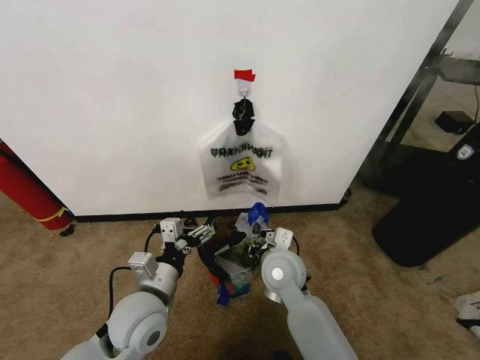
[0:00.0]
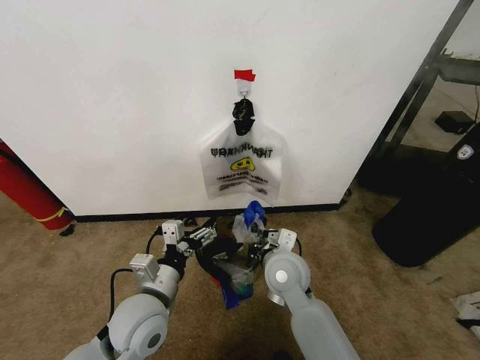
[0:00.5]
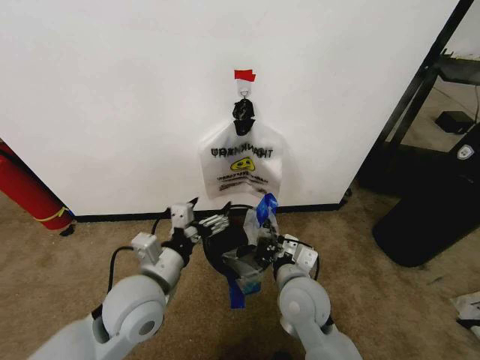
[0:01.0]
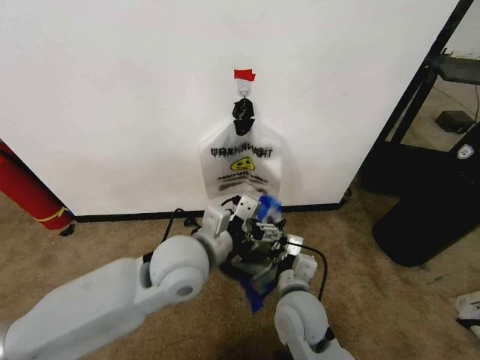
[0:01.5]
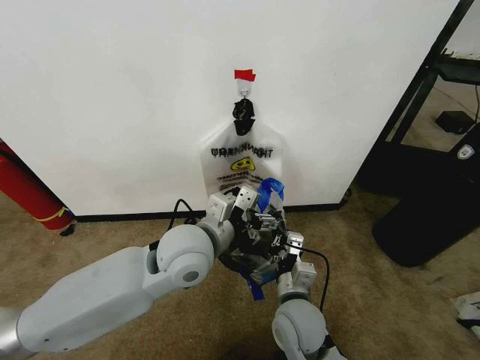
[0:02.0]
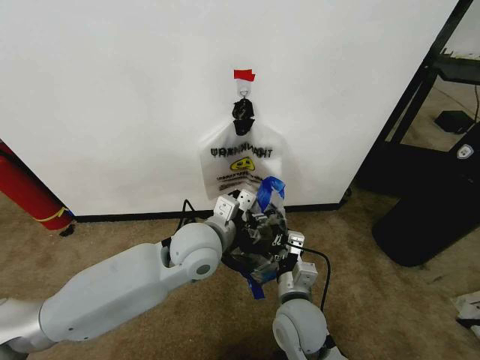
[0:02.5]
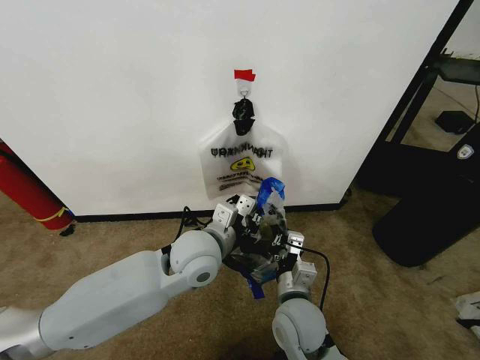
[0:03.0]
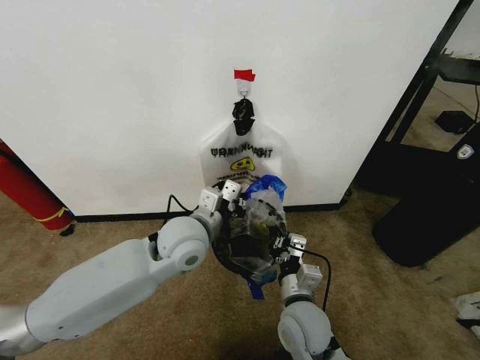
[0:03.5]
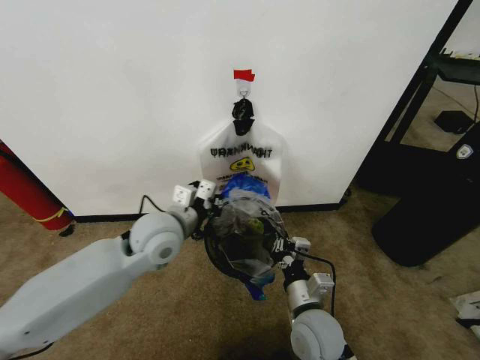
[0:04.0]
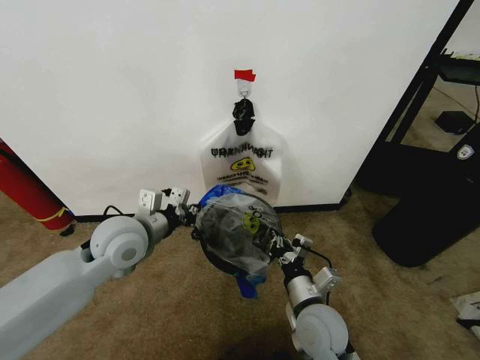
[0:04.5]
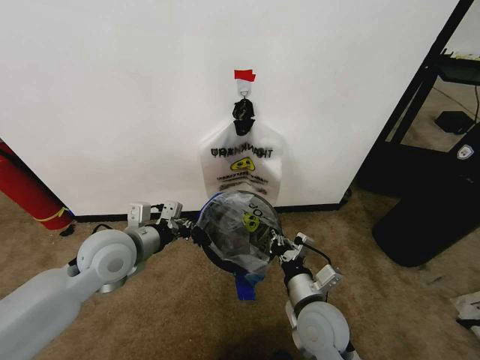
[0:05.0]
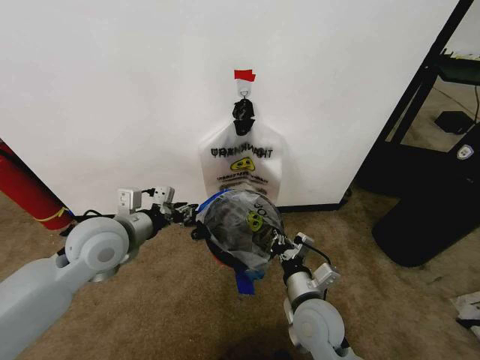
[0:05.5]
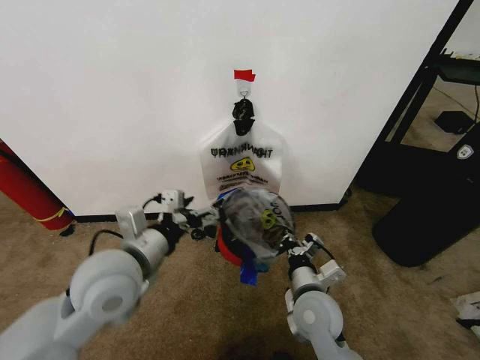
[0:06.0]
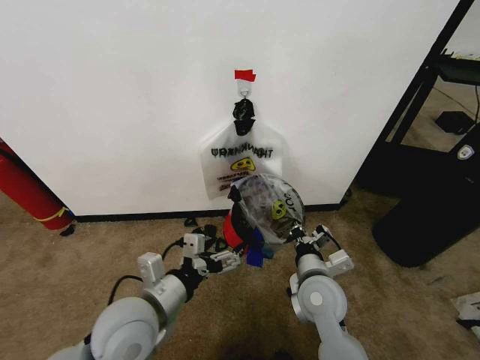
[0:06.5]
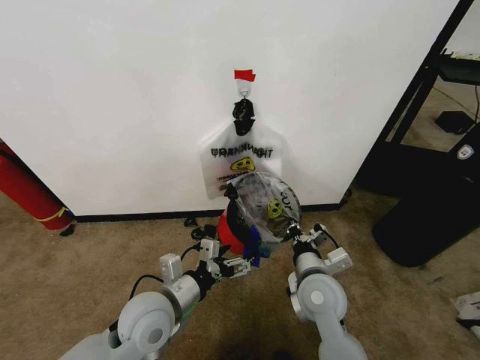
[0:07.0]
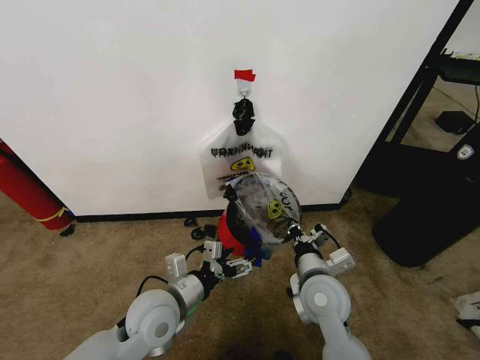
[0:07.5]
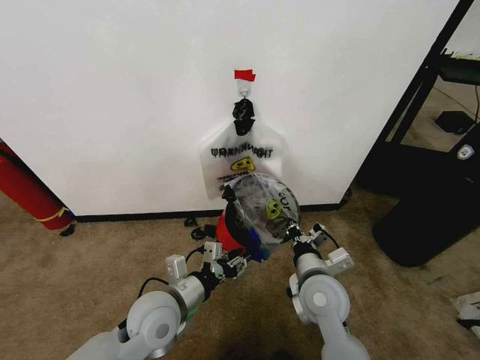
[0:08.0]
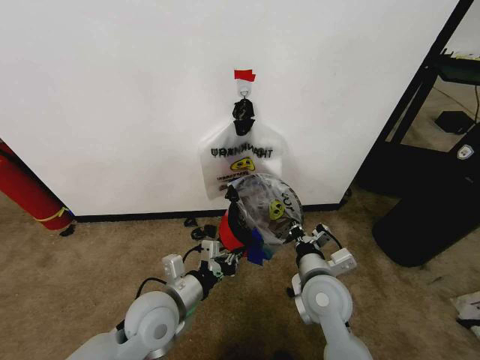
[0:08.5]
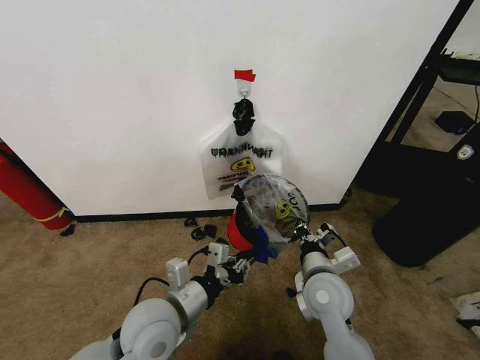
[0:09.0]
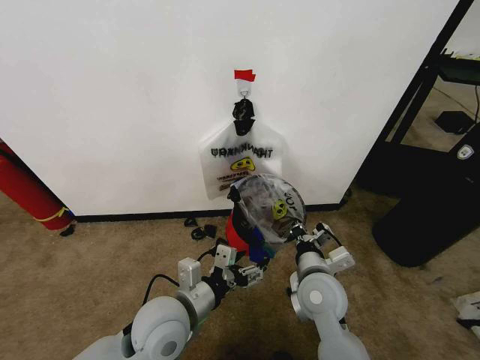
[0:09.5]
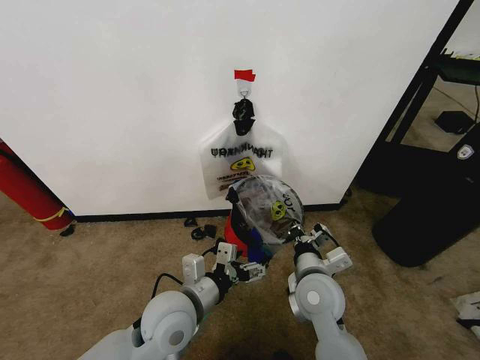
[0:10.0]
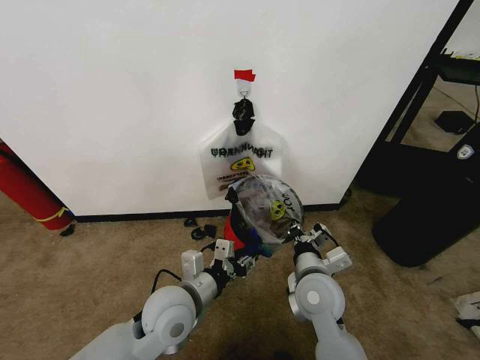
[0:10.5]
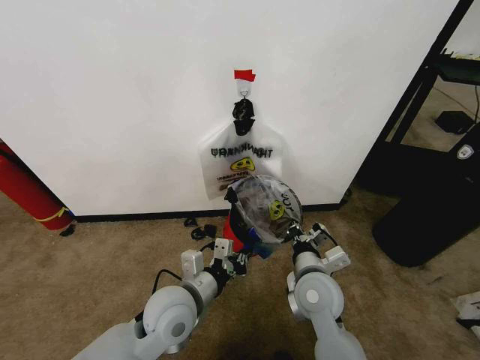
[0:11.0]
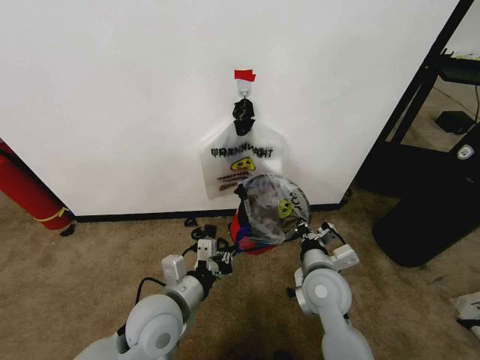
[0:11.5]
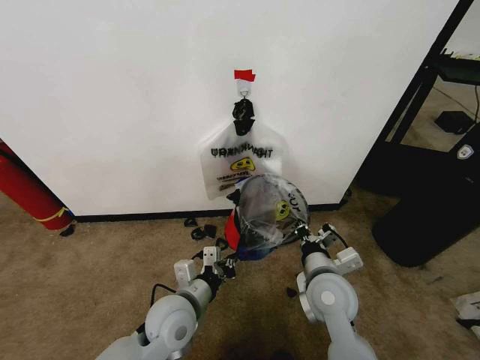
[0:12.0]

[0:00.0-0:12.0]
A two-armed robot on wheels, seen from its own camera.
Task of the whole recording: Pick up the garbage bag from the wall and place it over the trash bin.
0:00.0 to 0:02.0: The left gripper shifts some 15 cm upward, to the right and forward, while the right gripper moves backward, roughly 10 cm, and closes.
0:02.0 to 0:04.0: The left gripper heads to the left, covering about 5 cm, and closes its fingers.
0:04.0 to 0:06.0: The left gripper travels backward and to the left by roughly 10 cm, and opens its fingers.
0:06.0 to 0:08.0: The left gripper is displaced downward by approximately 15 cm, and closes up.
0:08.0 to 0:10.0: The left gripper opens its fingers.
0:10.0 to 0:12.0: The left gripper closes.

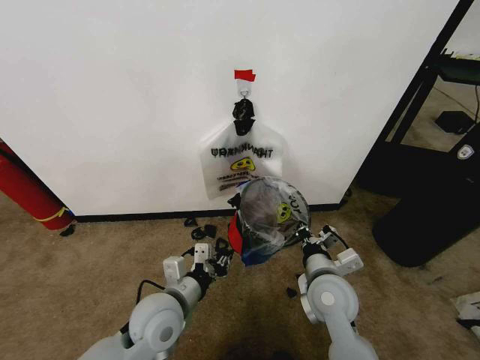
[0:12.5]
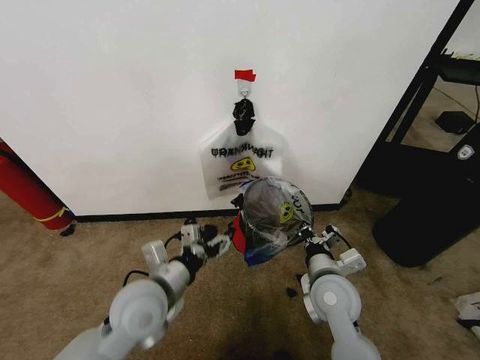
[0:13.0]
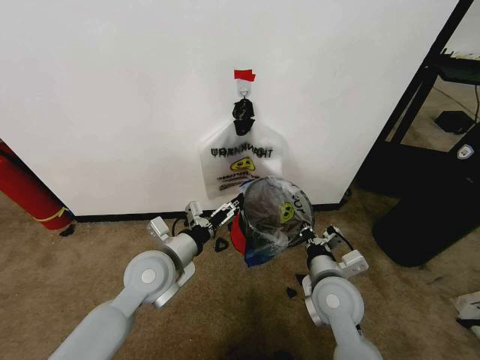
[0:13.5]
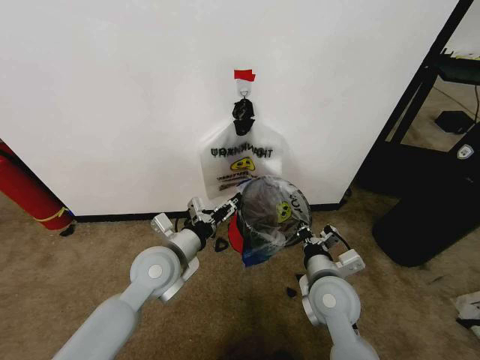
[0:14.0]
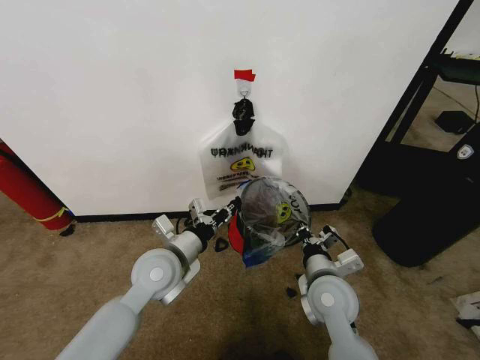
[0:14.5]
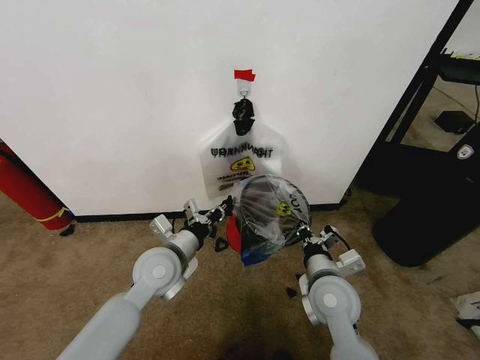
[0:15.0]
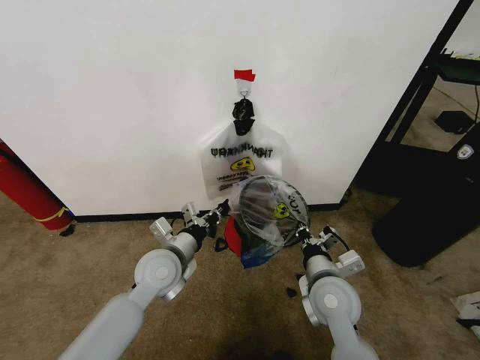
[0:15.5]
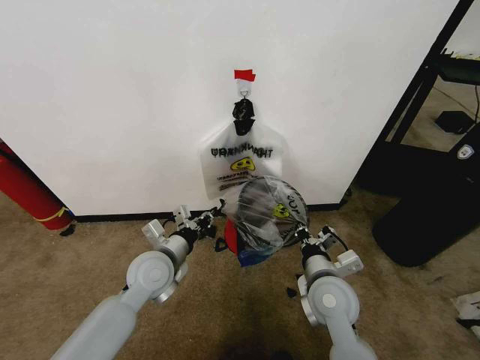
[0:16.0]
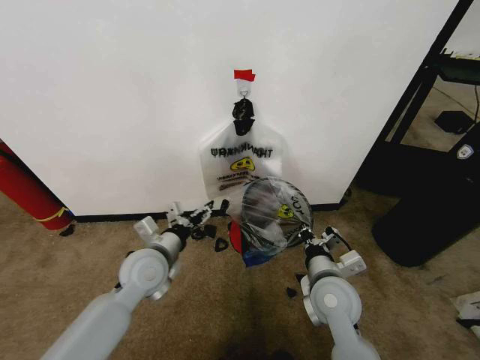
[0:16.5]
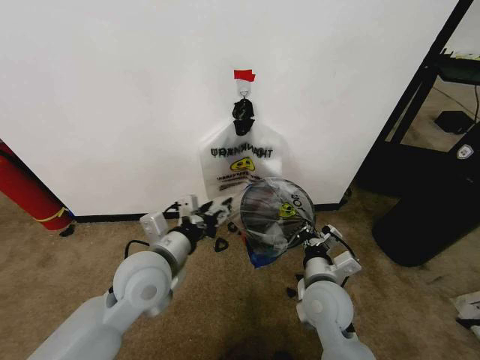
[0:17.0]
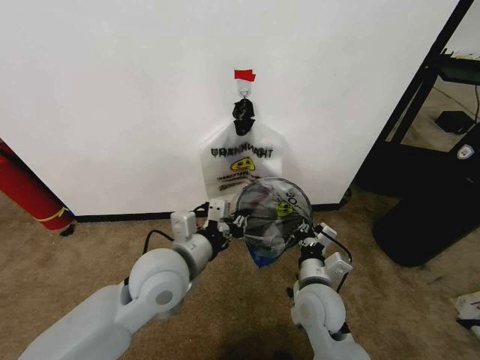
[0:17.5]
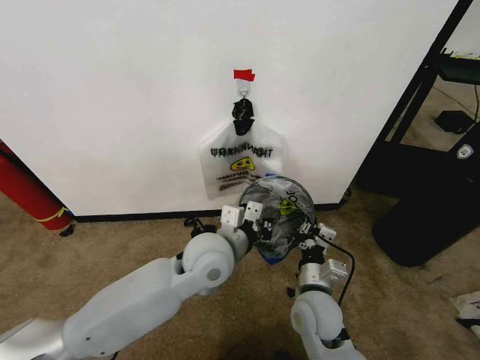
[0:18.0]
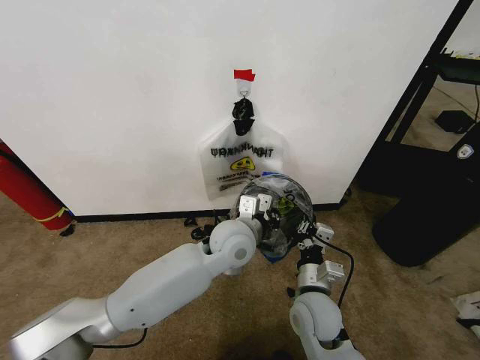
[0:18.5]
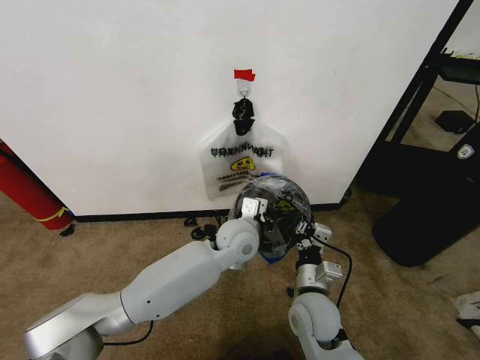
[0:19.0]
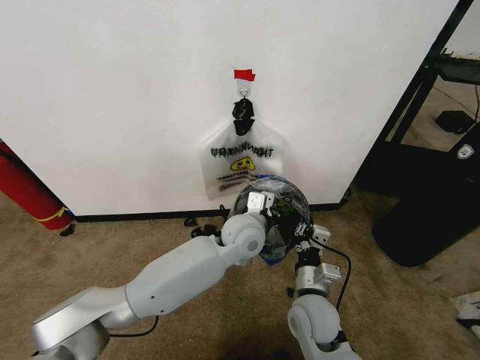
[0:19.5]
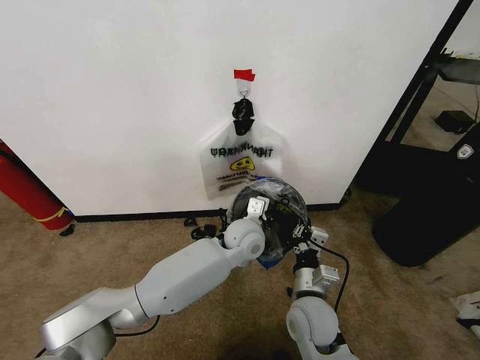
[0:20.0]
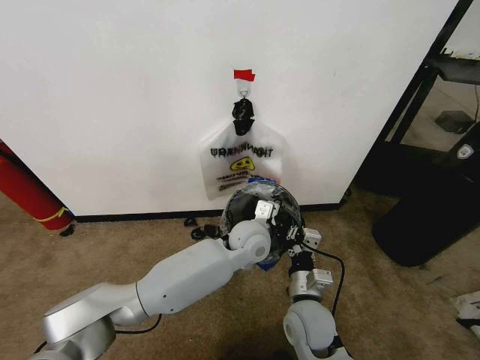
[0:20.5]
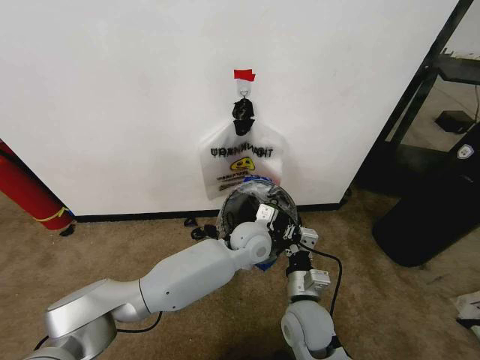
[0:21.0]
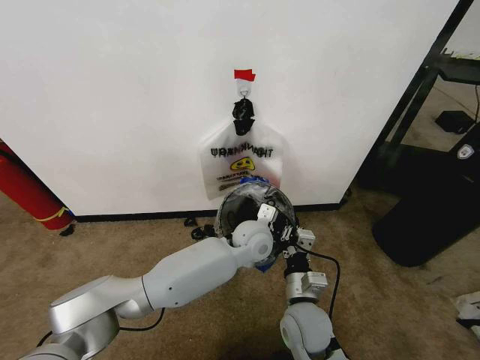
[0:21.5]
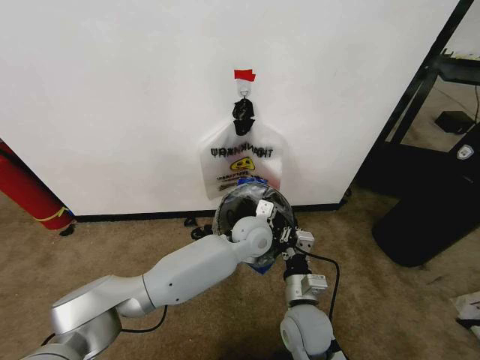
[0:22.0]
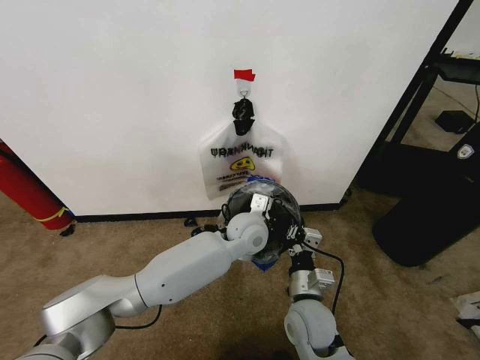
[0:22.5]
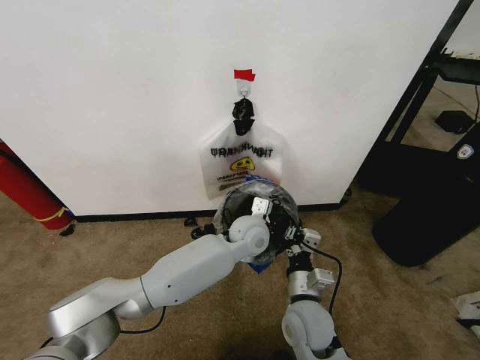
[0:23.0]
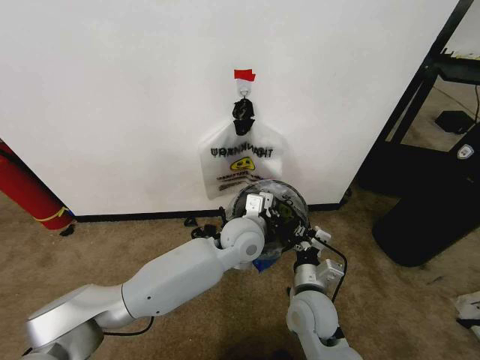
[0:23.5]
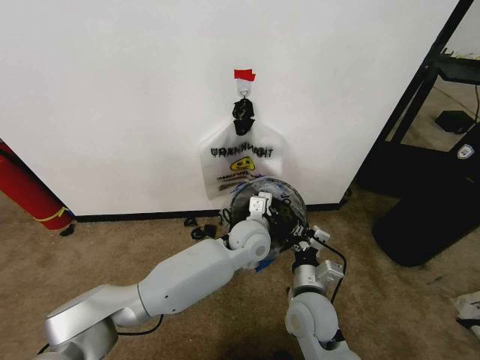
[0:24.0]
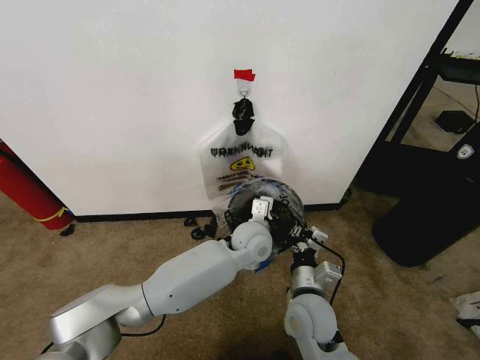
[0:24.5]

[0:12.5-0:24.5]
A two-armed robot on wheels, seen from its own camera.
Task of the whole recording: Pick up the garbage bag from the wall and place it over the trash bin.
0:12.5 to 0:14.5: The left gripper heads forward, covering roughly 5 cm, and opens and closes again.
0:14.5 to 0:16.5: The left gripper opens up.
0:16.5 to 0:18.5: The left gripper moves to the right, approximately 20 cm, and closes up; the right gripper changes place by about 5 cm.
0:18.5 to 0:20.5: The left gripper moves approximately 5 cm.
0:20.5 to 0:24.5: The grippers make only small movements.

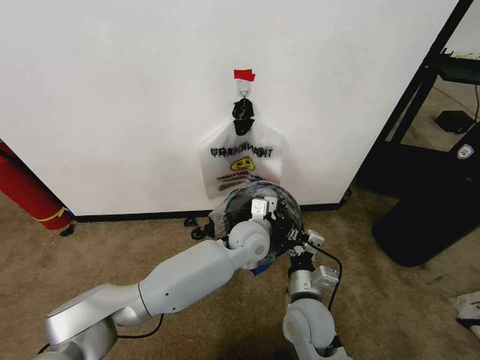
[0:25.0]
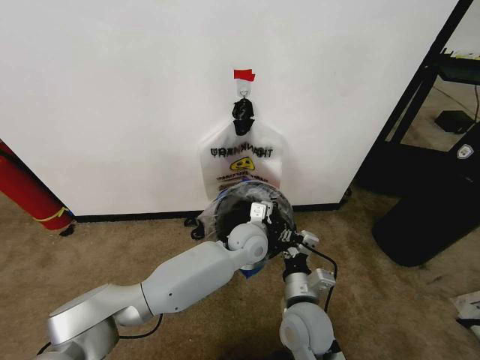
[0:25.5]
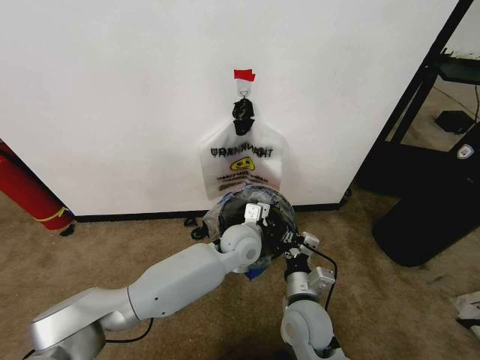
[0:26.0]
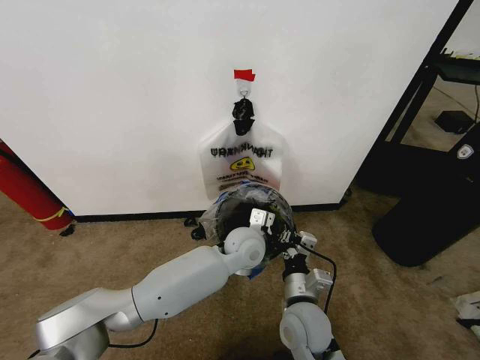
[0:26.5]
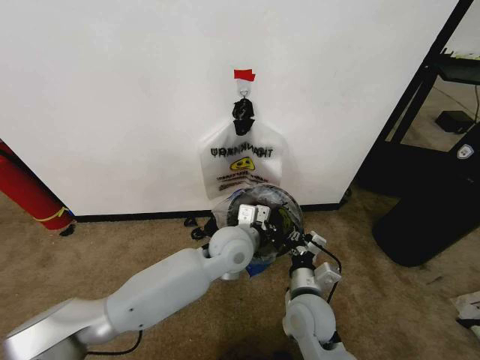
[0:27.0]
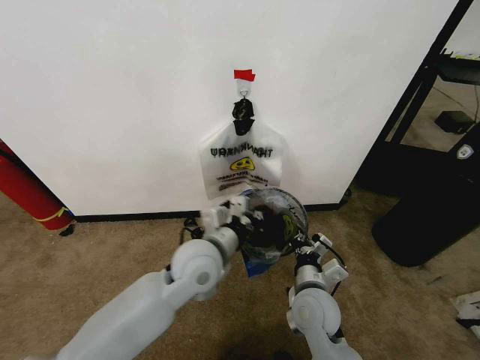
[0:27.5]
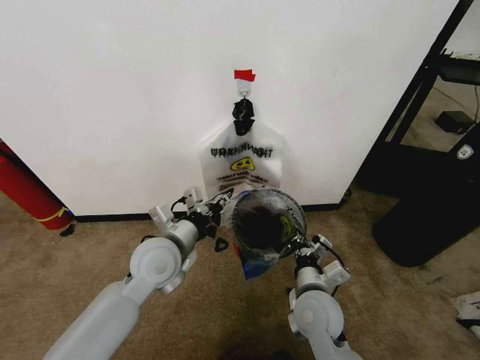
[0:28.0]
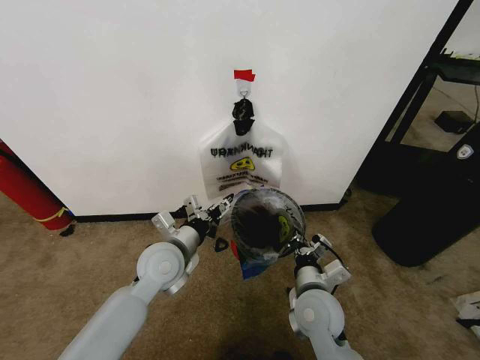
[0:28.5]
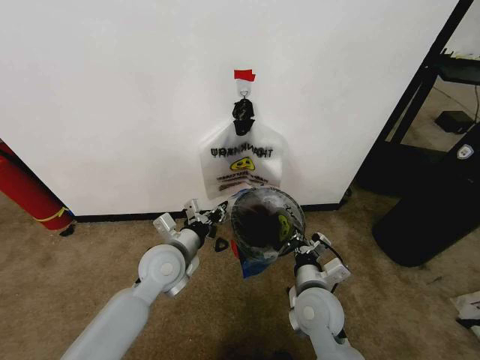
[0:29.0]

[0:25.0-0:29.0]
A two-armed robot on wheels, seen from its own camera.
Task of the whole recording: Pick up the garbage bag from the wall and place it over the trash bin.
0:25.0 to 0:27.0: The left gripper changes place by roughly 5 cm.
0:27.0 to 0:29.0: The left gripper is displaced to the left by about 15 cm, and opens and closes again.
